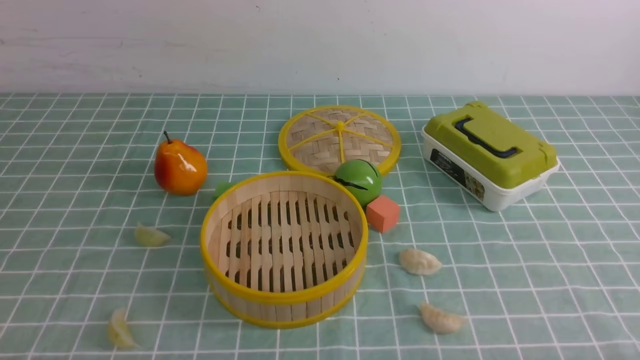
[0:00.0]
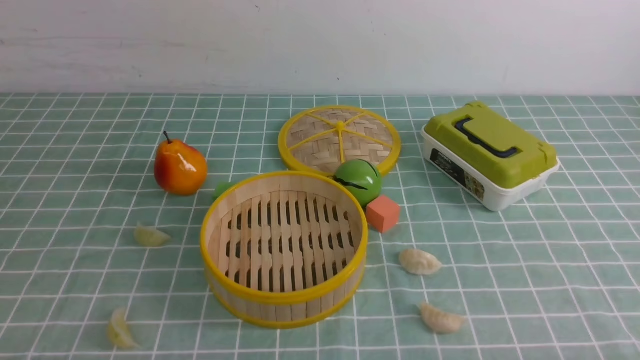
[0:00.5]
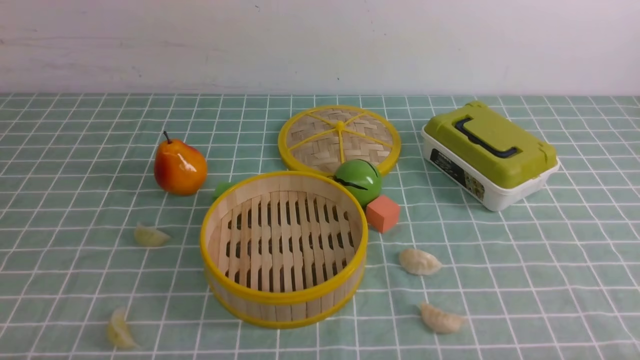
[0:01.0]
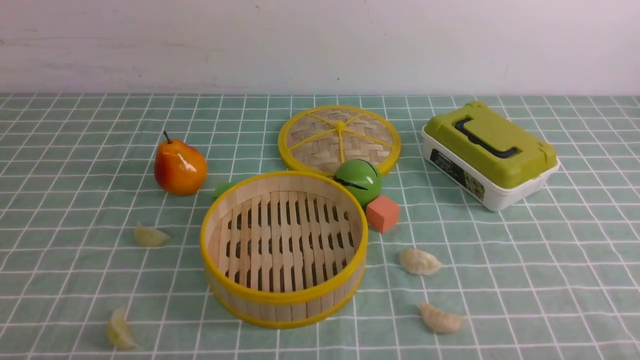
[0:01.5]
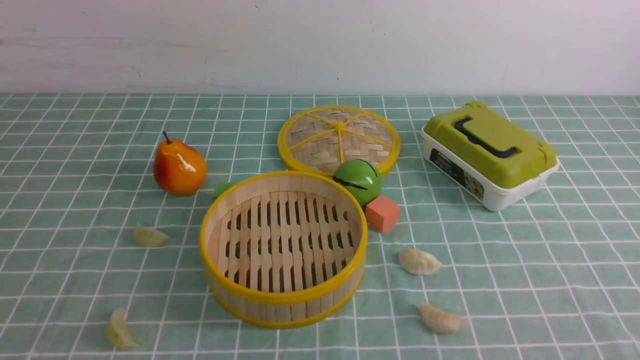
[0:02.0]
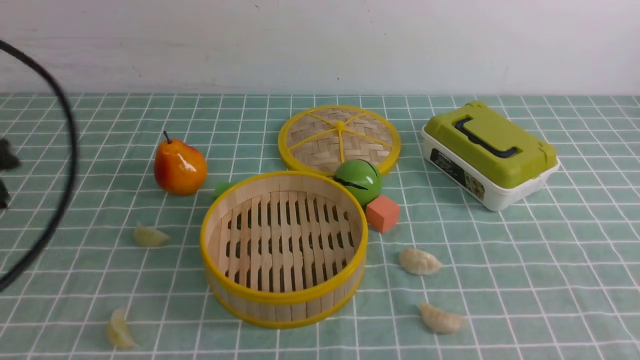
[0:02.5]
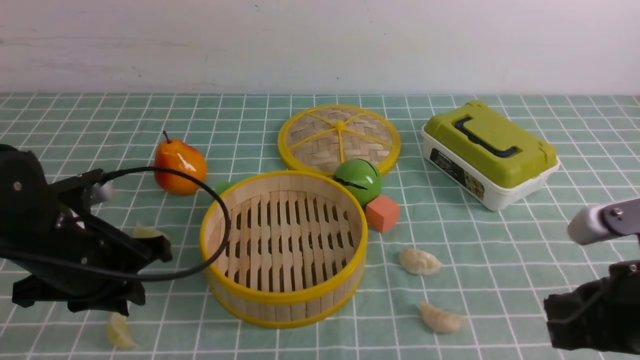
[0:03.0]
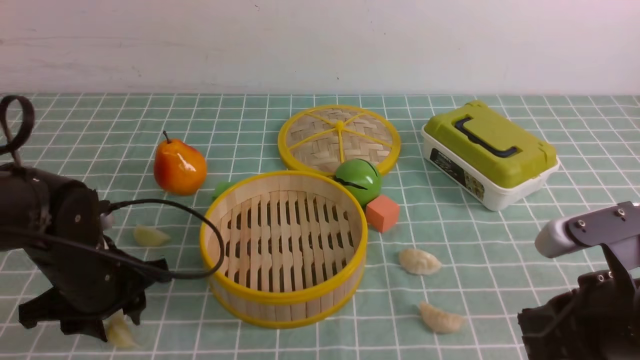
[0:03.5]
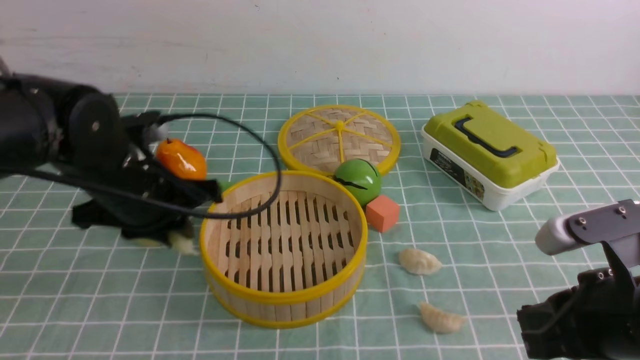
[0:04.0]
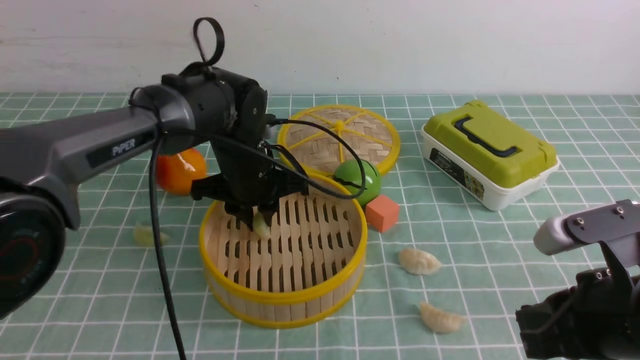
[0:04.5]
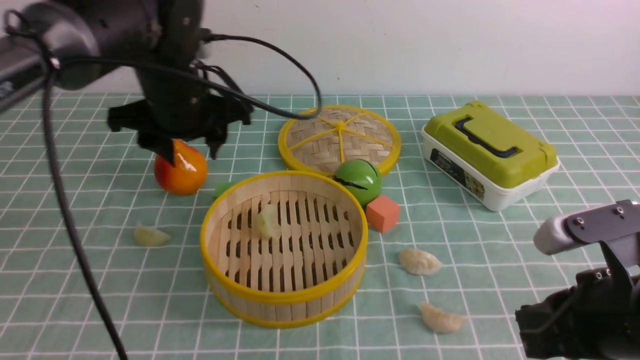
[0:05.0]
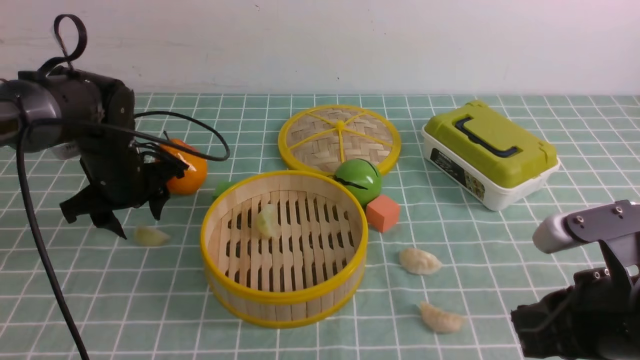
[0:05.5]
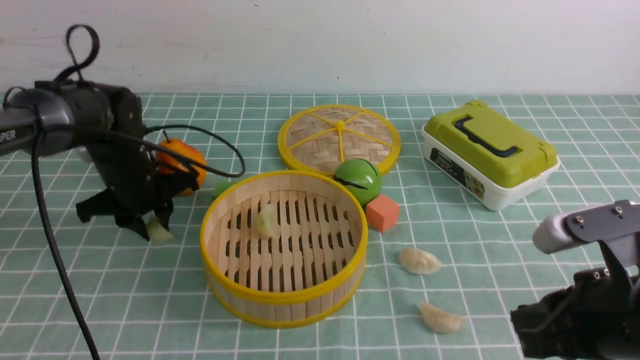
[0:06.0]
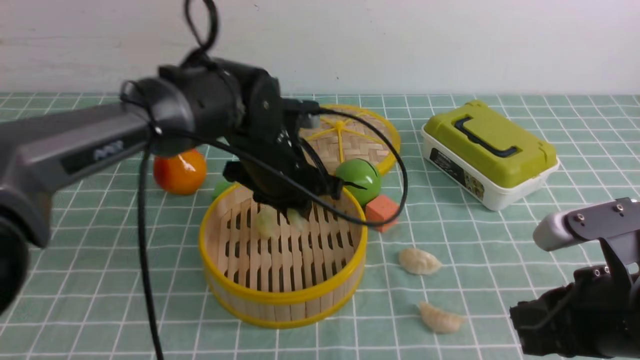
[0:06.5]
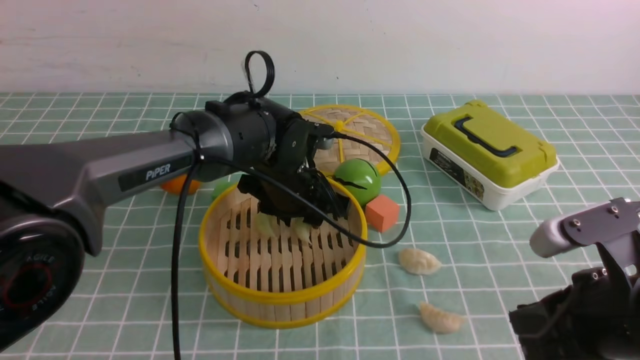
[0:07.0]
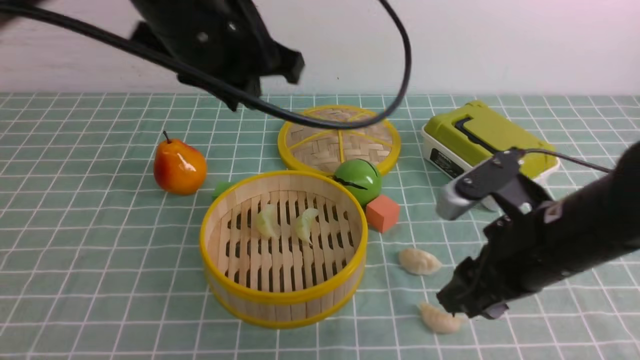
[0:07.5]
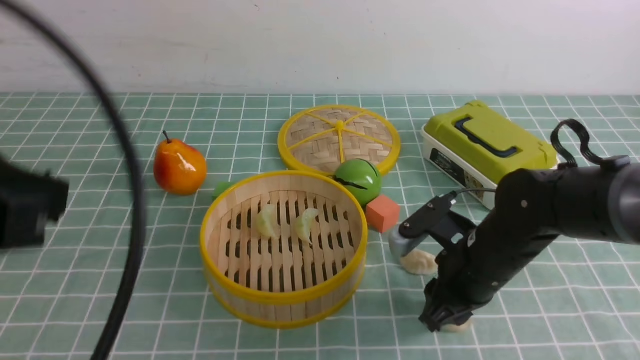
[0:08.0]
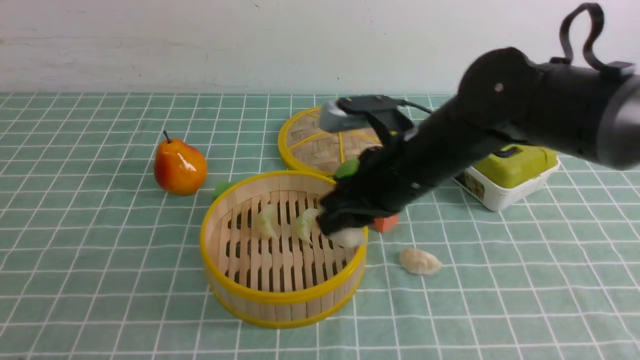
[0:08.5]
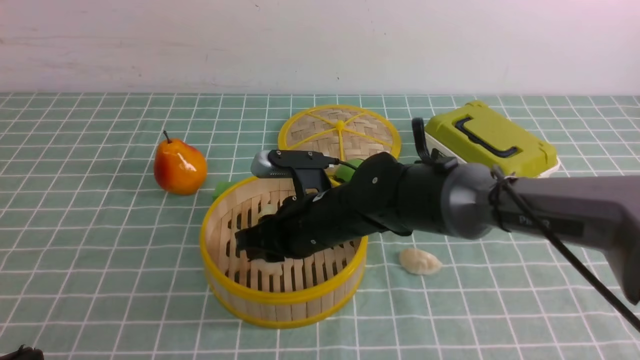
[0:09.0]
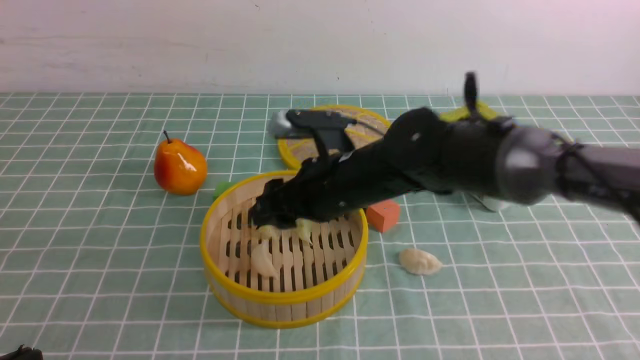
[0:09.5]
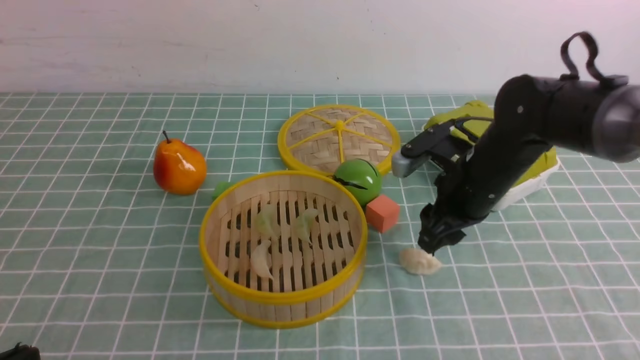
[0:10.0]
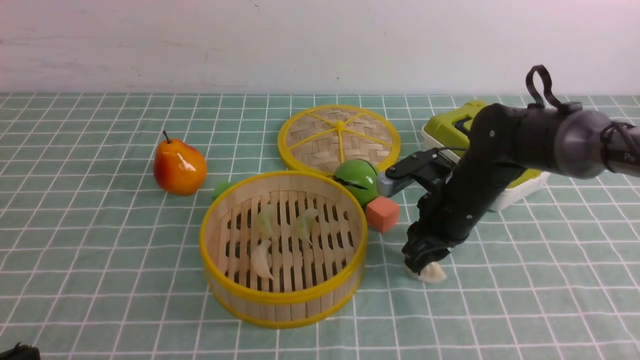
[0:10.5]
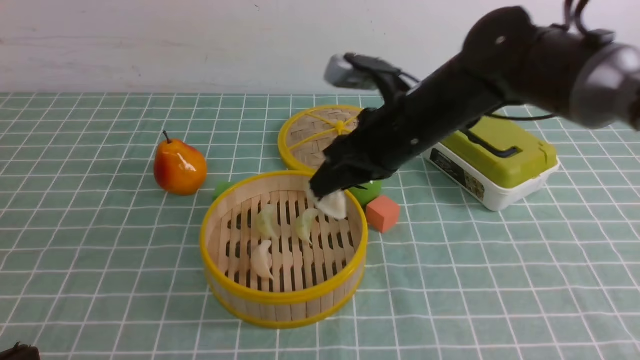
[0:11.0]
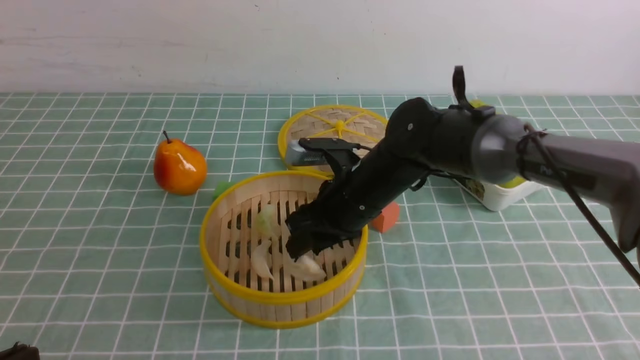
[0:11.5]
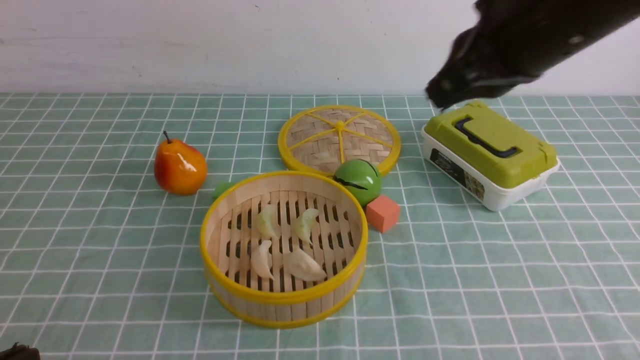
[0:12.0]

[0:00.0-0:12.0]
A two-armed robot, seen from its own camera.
Task of the whole recording: put the dumplings into the steamer on the table with the blue tablecloth.
Step, 0:00.0 to 0:04.0: use the left arm to grab a dumpling.
Step, 0:04.5 to 0:05.0: use the left arm to put the dumpling into the steamer.
Step, 0:05.5 to 0:06.0: use the left arm to grab a dumpling.
Step, 0:06.5 to 0:07.0: use the left arm to put the dumpling into the steamer.
Step, 0:07.5 to 0:08.5: use the right arm to grab a dumpling.
Step, 0:09.5 to 0:10.5: use the right arm to grab a dumpling.
Step, 0:11.0 to 0:11.5: use the right arm to put the dumpling into the steamer.
0:02.0 to 0:04.0: The right gripper shifts about 15 cm forward and to the left, while the left gripper heads forward, covering some 30 cm, and opens, then closes again.
0:04.0 to 0:06.0: The left gripper moves forward, roughly 10 cm, travels to the right and back again, roughly 10 cm each way, and opens and closes again.
0:06.0 to 0:08.0: The right gripper moves forward, downward and to the left, roughly 15 cm, and opens. Meanwhile the left gripper shifts about 35 cm backward and upward, and closes its fingers.
0:08.0 to 0:10.0: The left gripper heads downward and backward, covering approximately 20 cm, while the right gripper goes approximately 10 cm forward and upward, and travels to the left and back again, about 15 cm each way.
0:10.0 to 0:12.0: The right gripper goes up and down, approximately 20 cm each way, reversing 3 times, and closes.

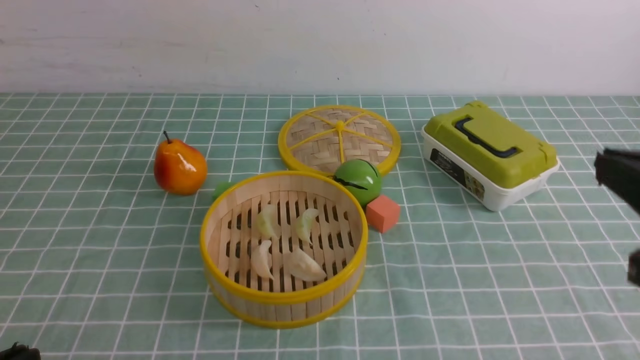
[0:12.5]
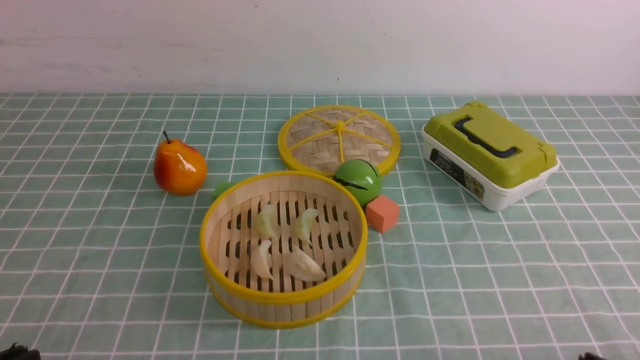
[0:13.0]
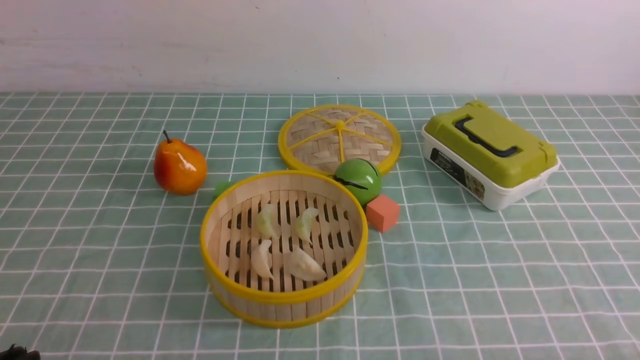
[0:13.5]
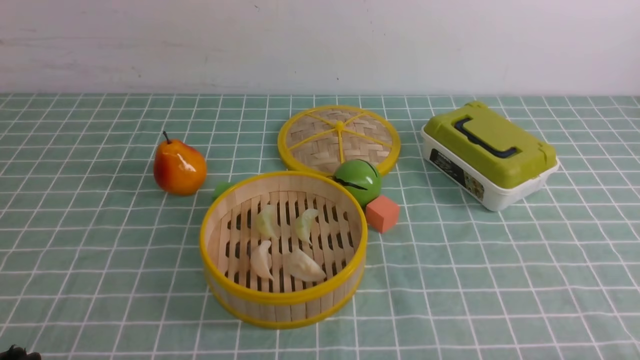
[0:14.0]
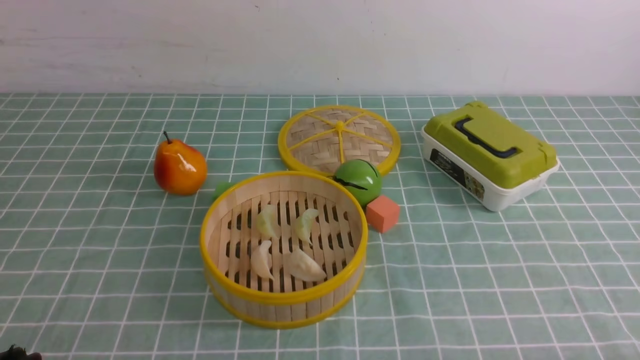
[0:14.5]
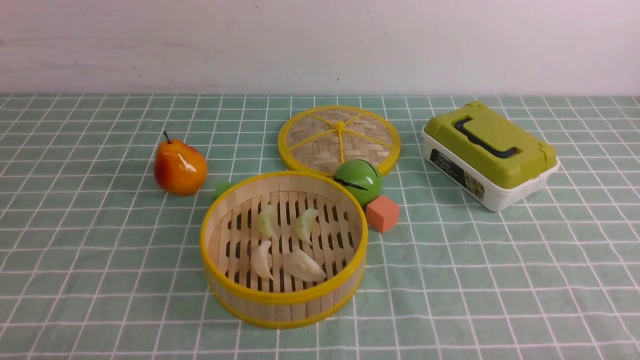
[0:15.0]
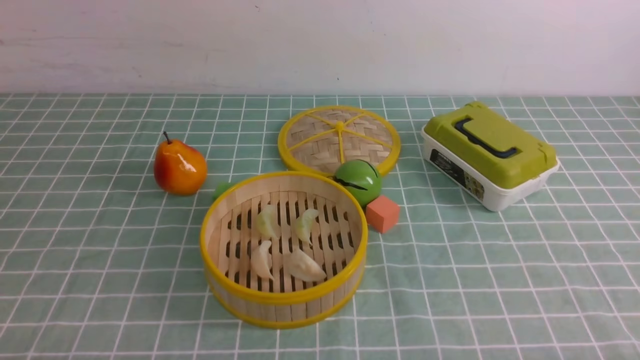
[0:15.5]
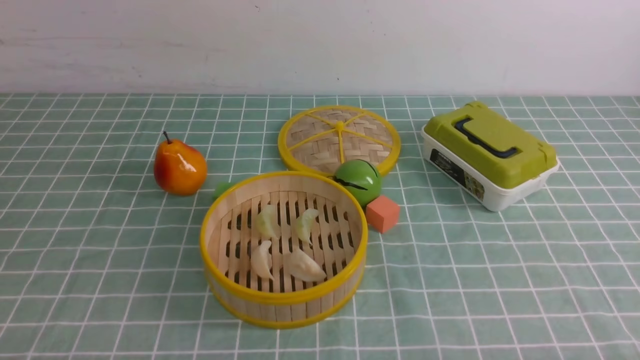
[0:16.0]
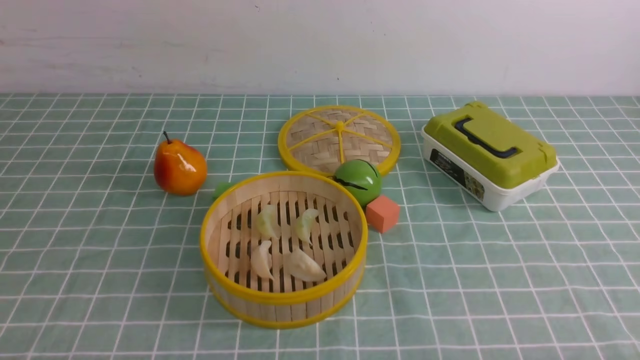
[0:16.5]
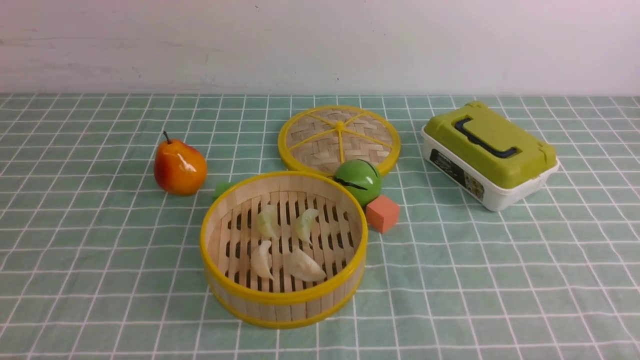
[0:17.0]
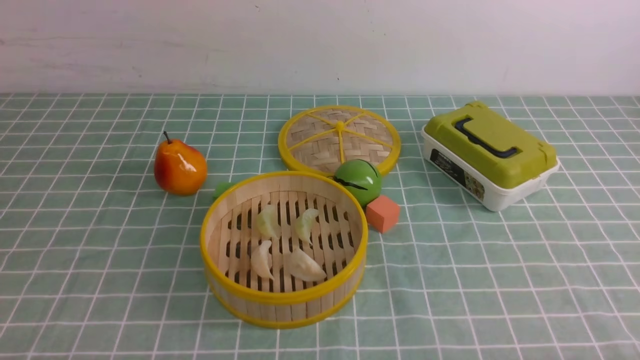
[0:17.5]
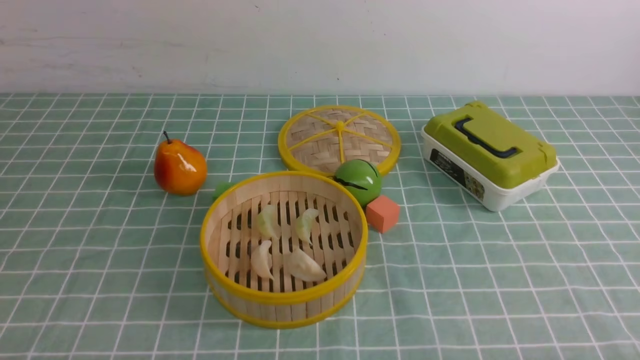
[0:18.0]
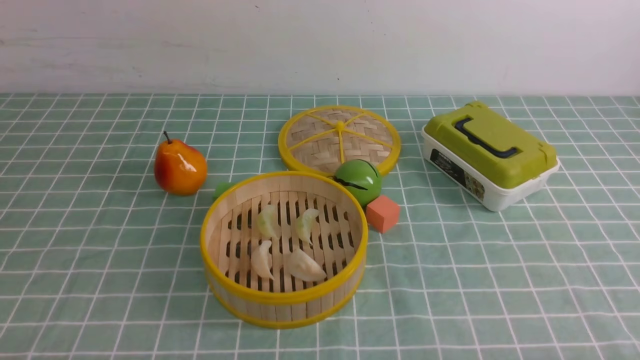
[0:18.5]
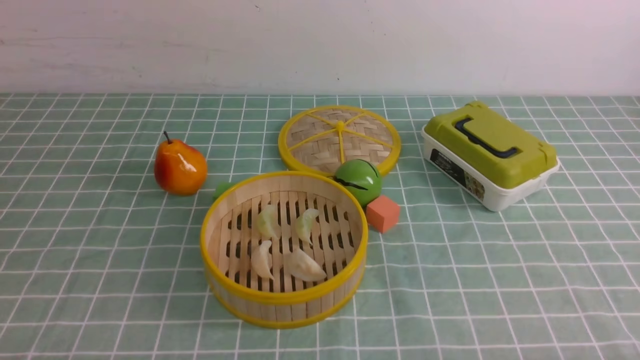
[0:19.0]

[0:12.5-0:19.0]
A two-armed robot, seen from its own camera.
Task of the whole recording: put the dumplings into the steamer on the table with the blue tablecloth.
0:12.5 to 0:14.5: The right gripper moves downward and backward, about 25 cm.
0:17.0 to 0:19.0: The two grippers keep their place.

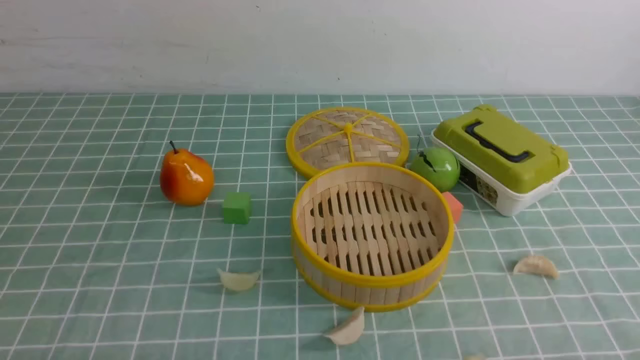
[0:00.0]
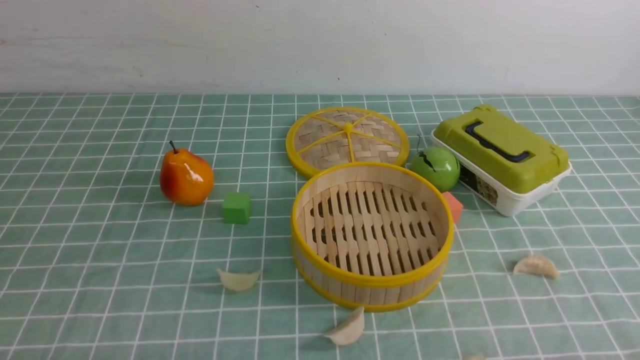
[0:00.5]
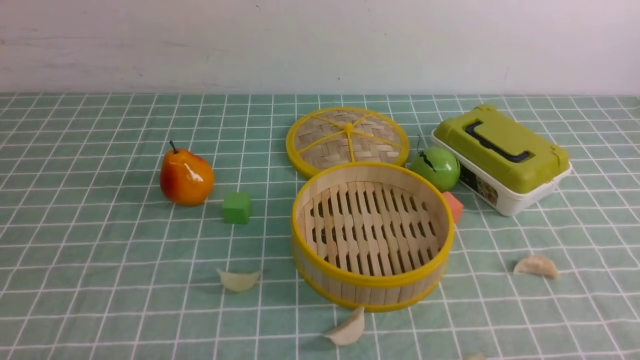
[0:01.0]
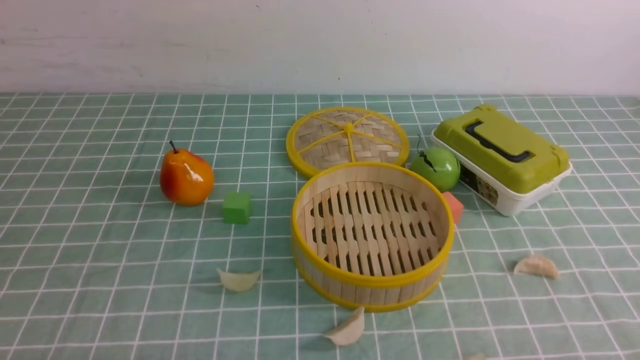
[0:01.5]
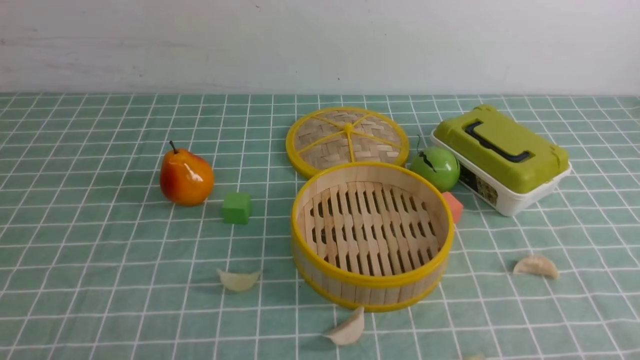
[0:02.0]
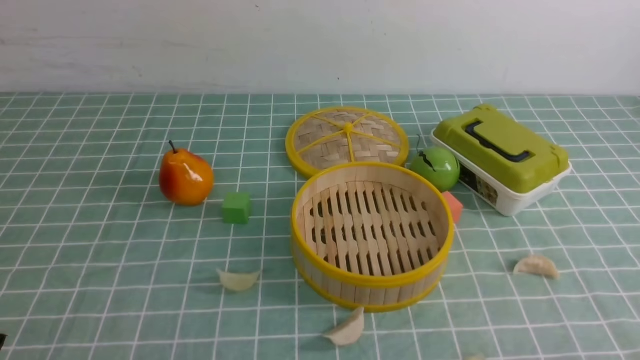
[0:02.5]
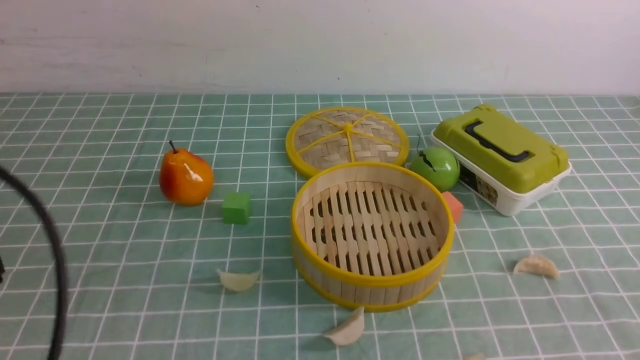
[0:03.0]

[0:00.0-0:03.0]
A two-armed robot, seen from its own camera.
Task of the whole recording: put the dumplings into the steamer on the table with the blue tablecloth.
0:01.5 to 0:03.0: The left gripper shifts about 15 cm upward.
